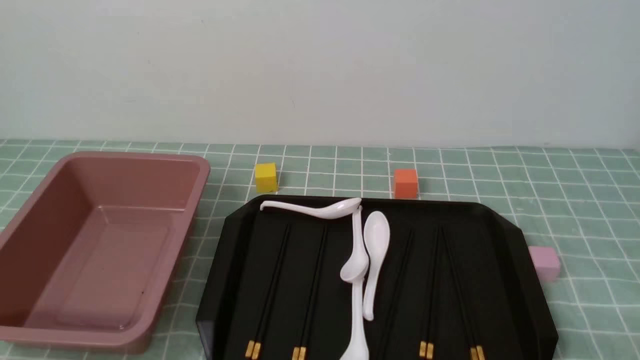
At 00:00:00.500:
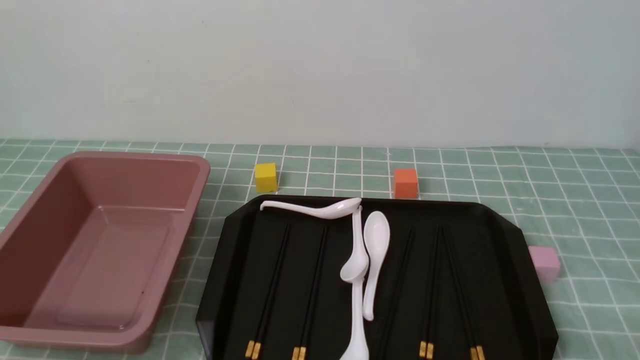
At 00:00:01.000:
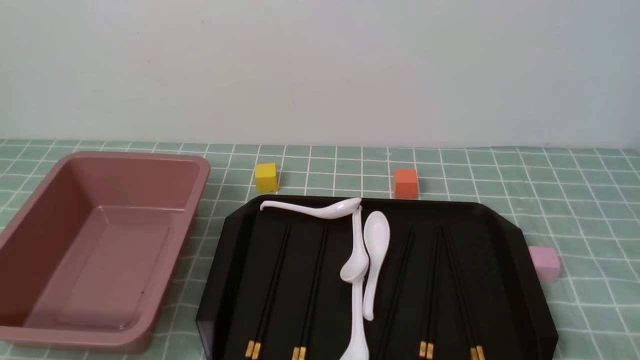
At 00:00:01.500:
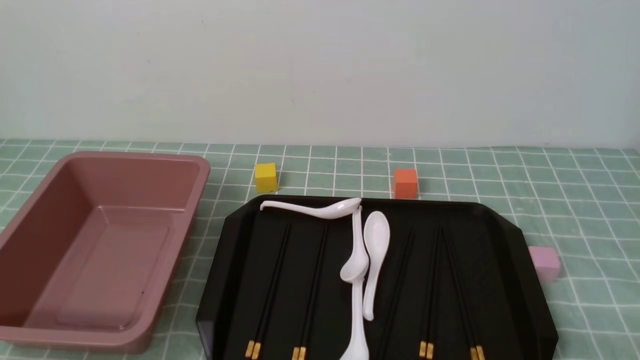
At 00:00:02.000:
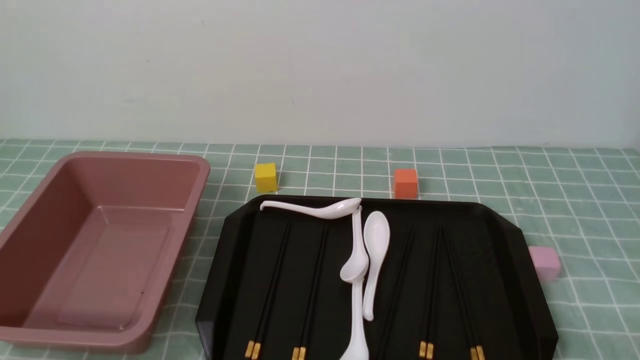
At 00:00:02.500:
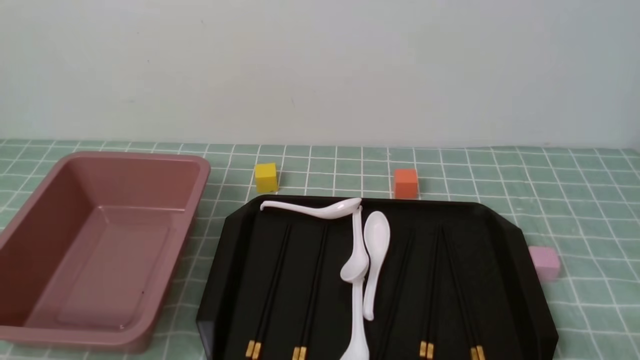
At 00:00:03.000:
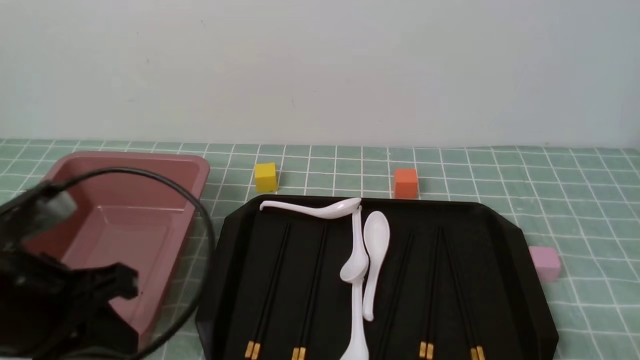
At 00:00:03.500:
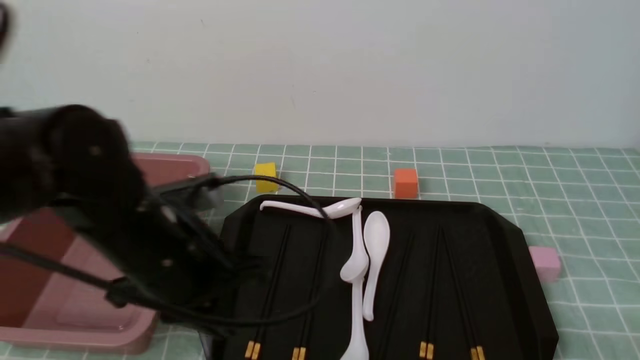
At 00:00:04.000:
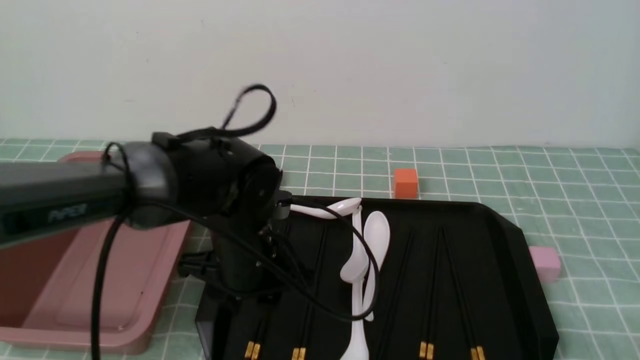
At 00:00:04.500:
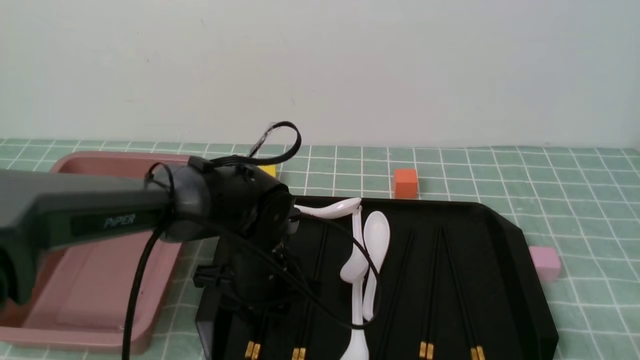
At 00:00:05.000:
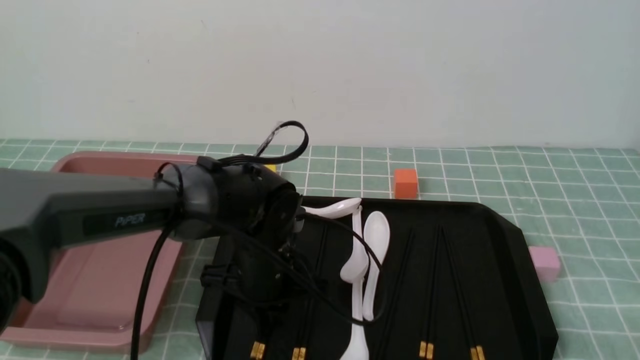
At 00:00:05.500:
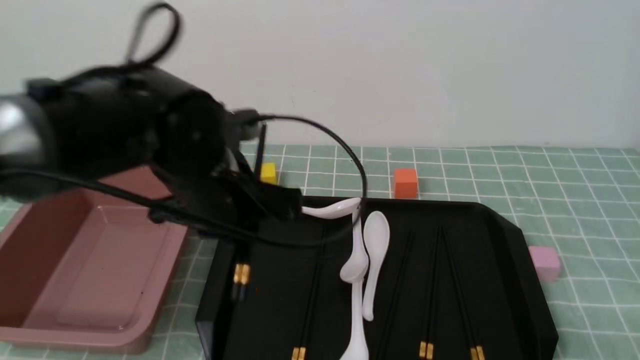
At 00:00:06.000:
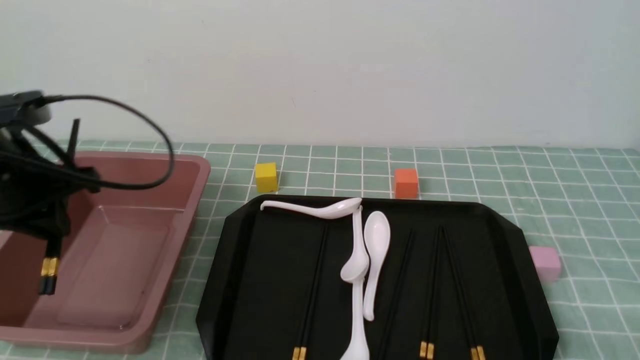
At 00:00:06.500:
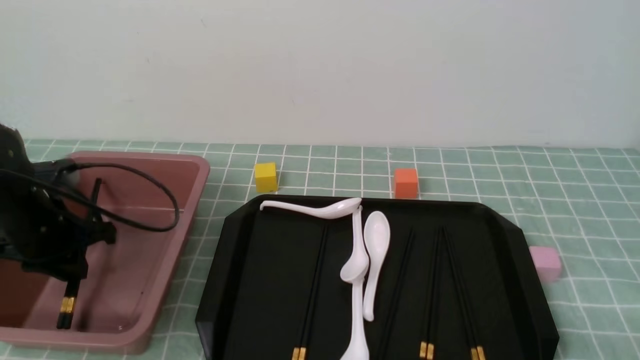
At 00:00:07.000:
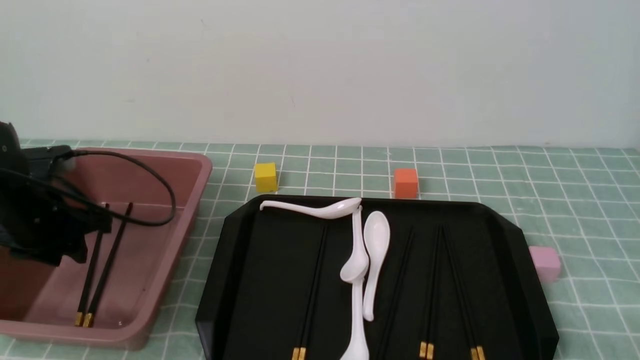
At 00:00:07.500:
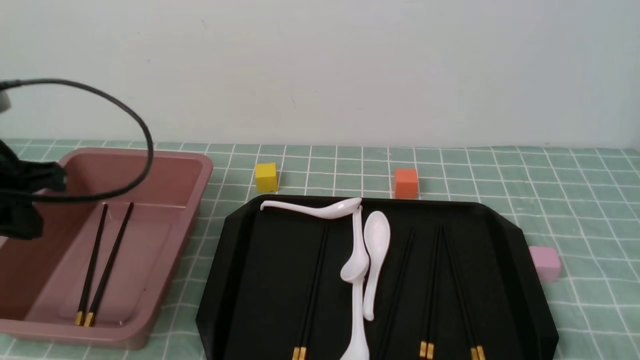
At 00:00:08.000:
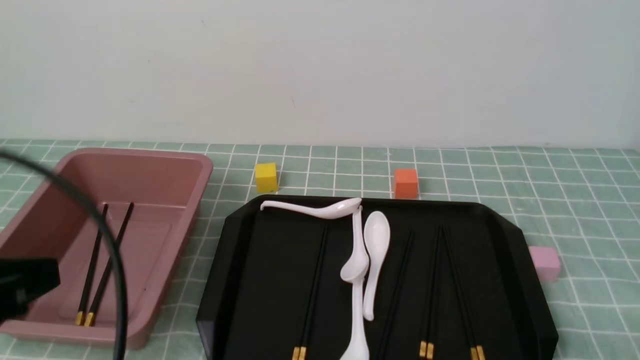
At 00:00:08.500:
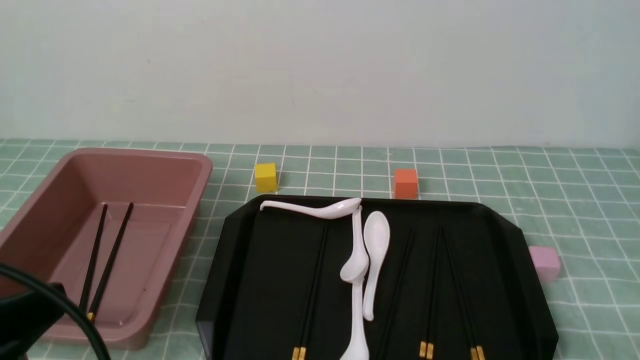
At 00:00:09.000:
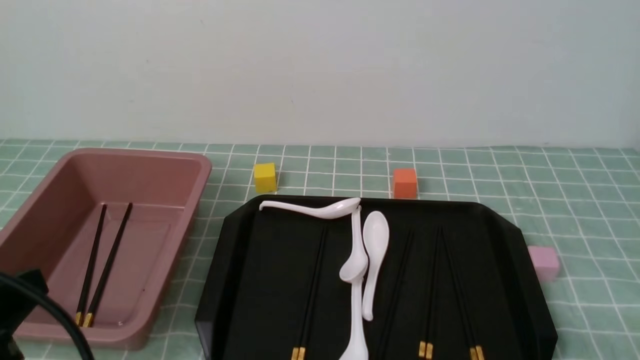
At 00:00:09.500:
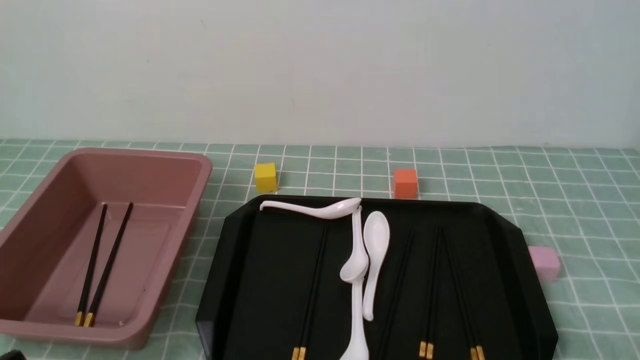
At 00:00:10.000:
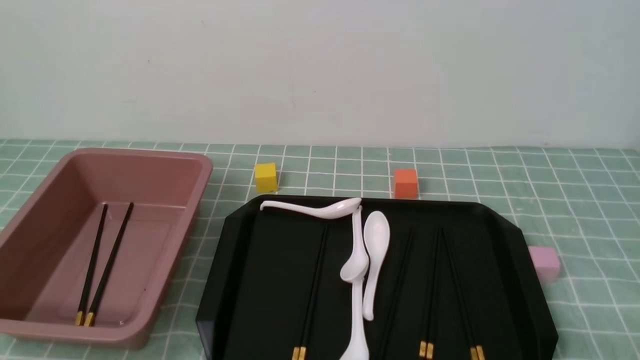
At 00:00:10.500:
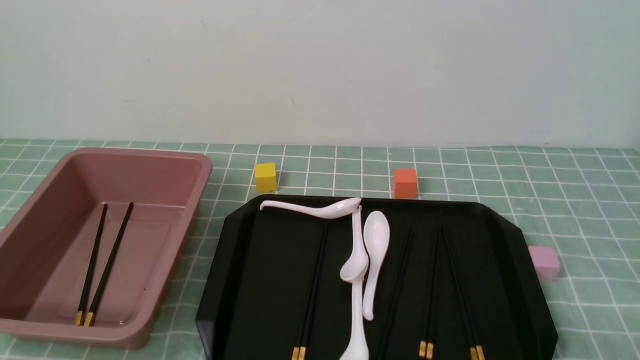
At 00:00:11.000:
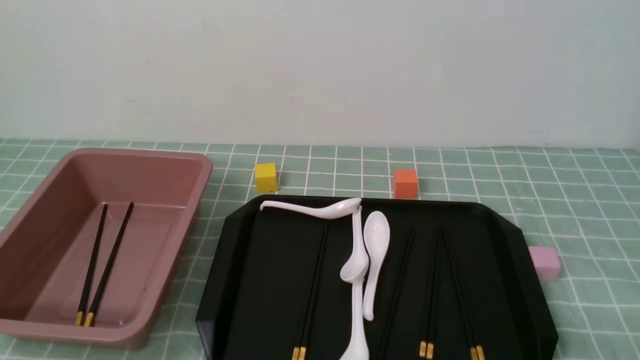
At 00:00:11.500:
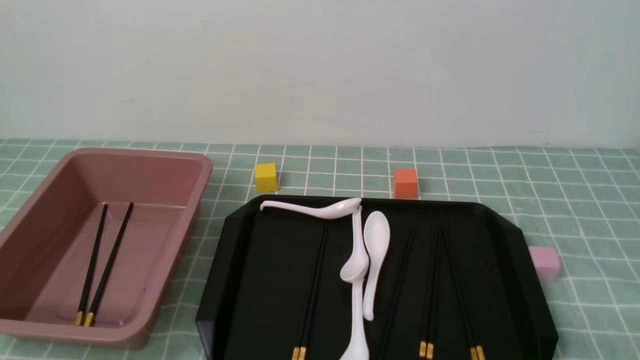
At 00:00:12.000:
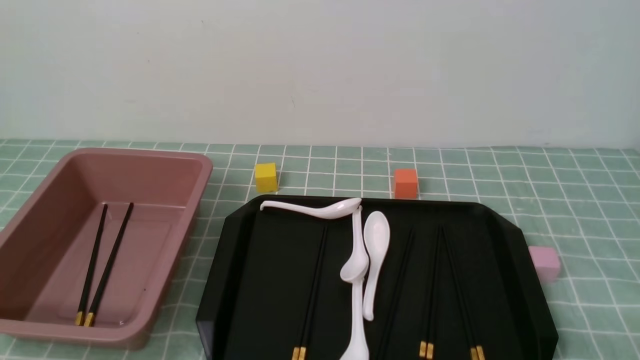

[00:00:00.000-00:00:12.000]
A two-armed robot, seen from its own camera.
Step, 00:00:00.000 to 00:00:05.500: use the left arm to grab a pair of chopsticks.
Step, 00:00:06.000 to 00:00:07.000: use the left arm to put the chopsticks into the lunch box.
00:00:02.000 to 00:00:04.000: The left gripper travels forward and to the right by roughly 30 cm, and closes and opens again.
00:00:04.000 to 00:00:06.000: The left gripper moves to the left and upward, about 20 cm, and closes its fingers.
00:00:06.000 to 00:00:08.000: The left gripper heads backward, covering some 20 cm, and closes.
00:00:08.000 to 00:00:10.000: The left gripper moves downward and backward, approximately 15 cm.
00:00:10.000 to 00:00:12.000: Both grippers stay about where they are.
